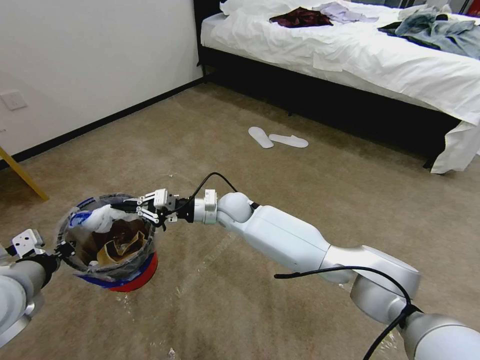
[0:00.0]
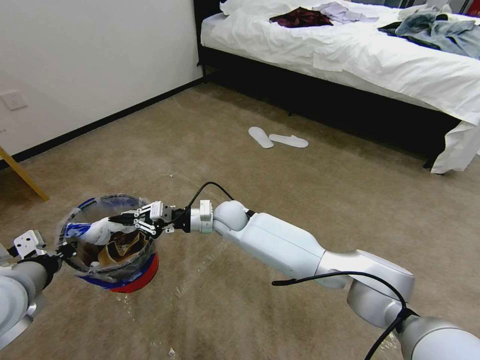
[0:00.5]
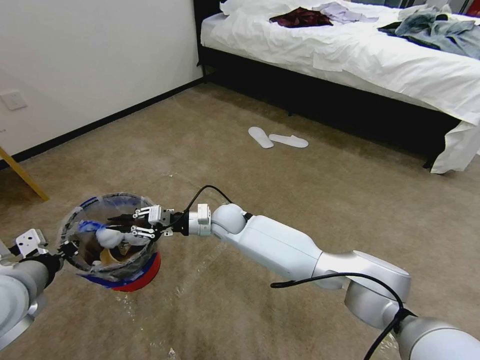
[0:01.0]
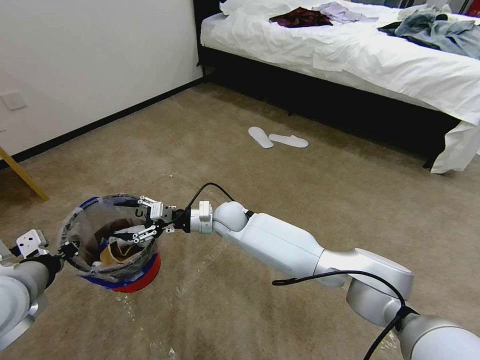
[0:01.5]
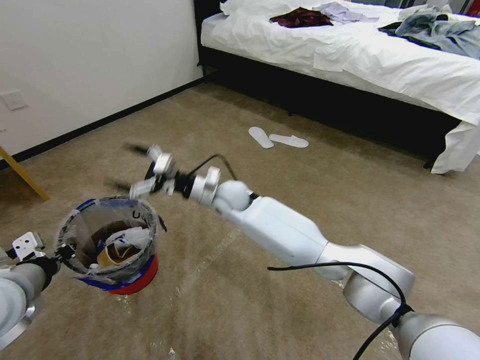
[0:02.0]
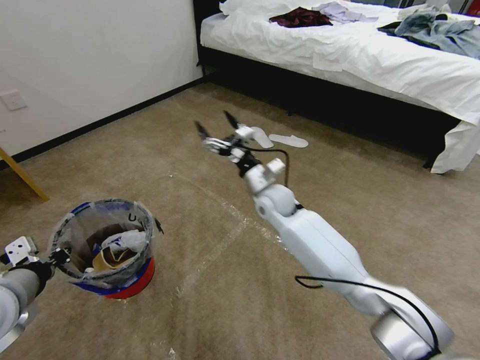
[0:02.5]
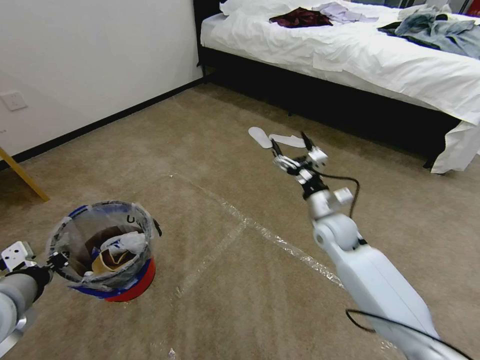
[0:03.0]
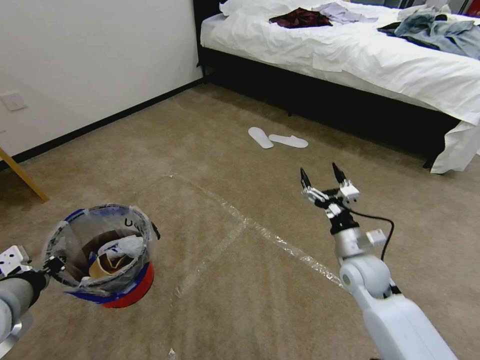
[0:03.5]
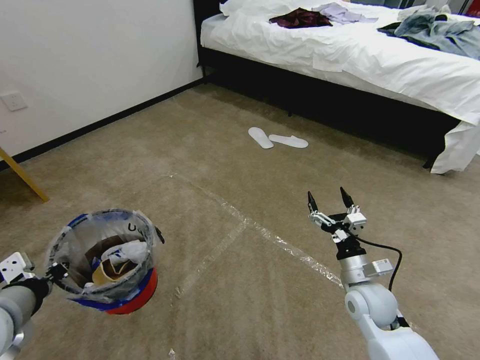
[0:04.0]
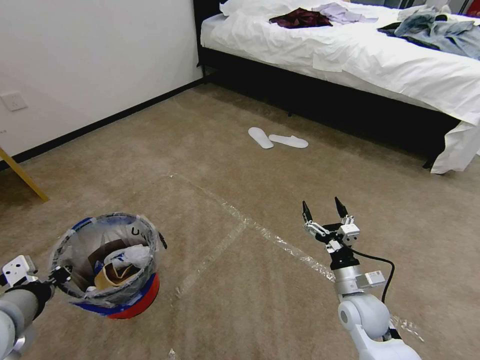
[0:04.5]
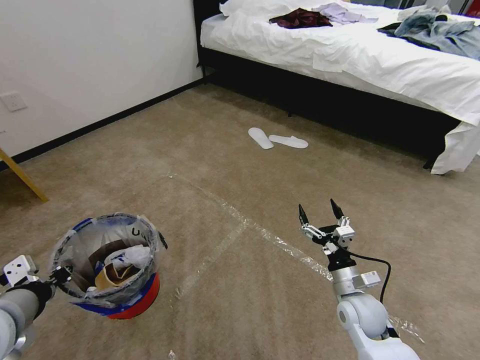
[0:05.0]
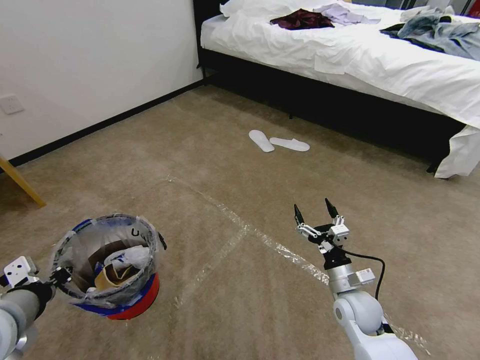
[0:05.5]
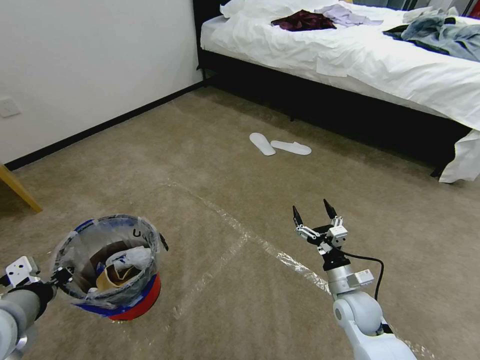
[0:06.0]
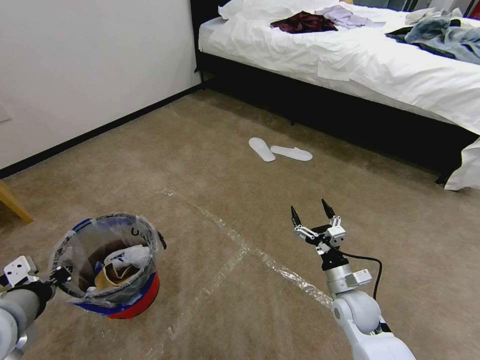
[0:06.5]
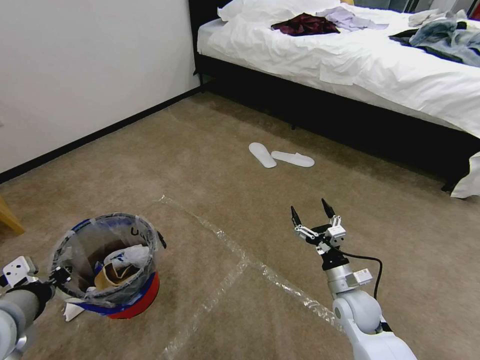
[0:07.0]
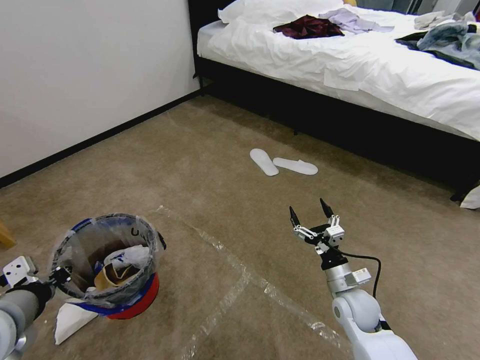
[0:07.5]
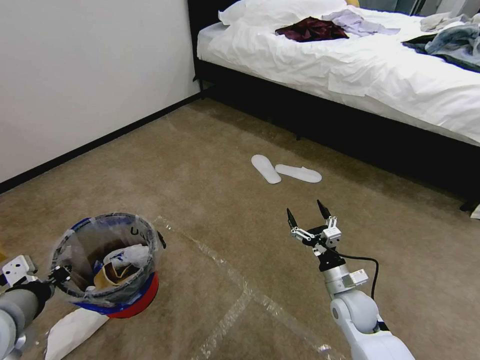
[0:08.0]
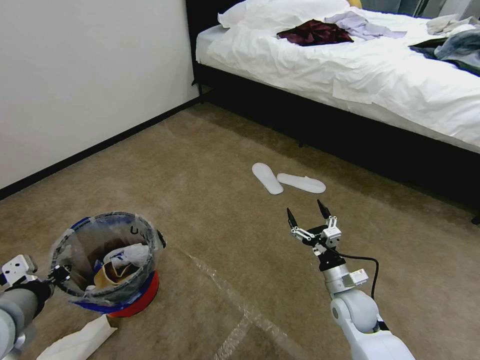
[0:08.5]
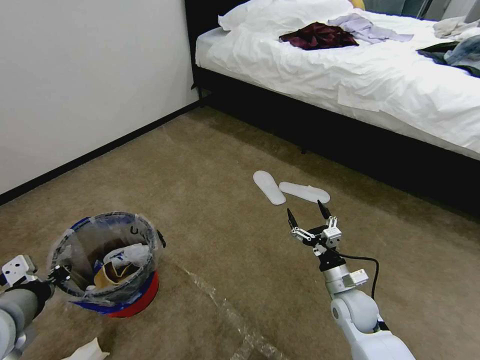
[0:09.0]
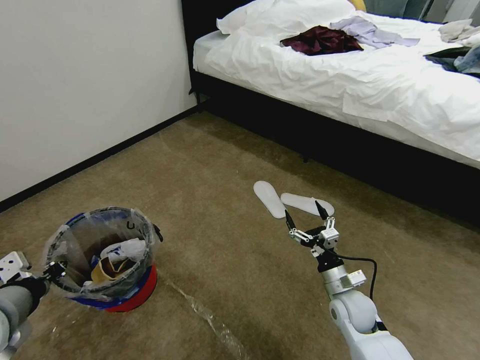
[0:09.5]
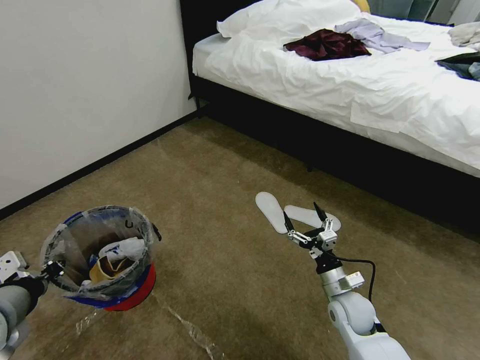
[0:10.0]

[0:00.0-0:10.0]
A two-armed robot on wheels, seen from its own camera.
Task of the whole recording: Pick up the trash bin and place the garbage on the floor into it.
0:00.0 to 0:02.0: The right gripper opens up.
0:02.0 to 0:04.0: The right gripper is displaced to the right and backward by some 40 cm.
0:04.0 to 0:06.0: The grippers stay close to where they were, moving slightly.

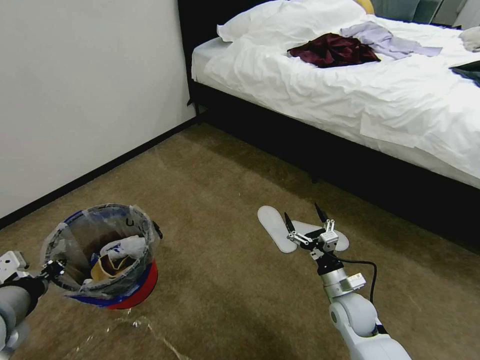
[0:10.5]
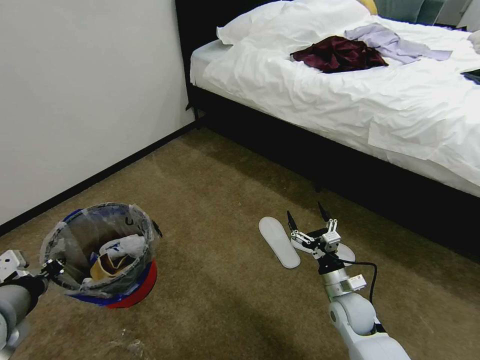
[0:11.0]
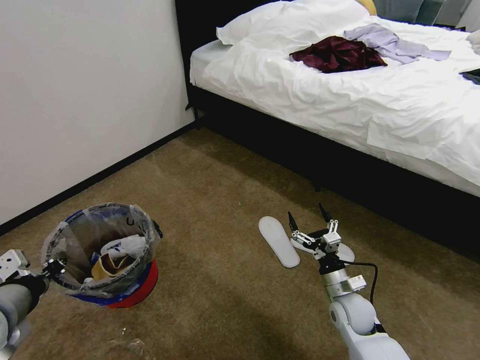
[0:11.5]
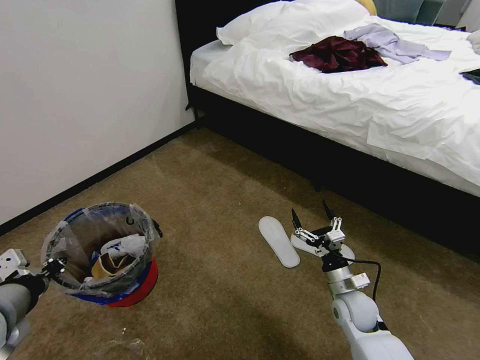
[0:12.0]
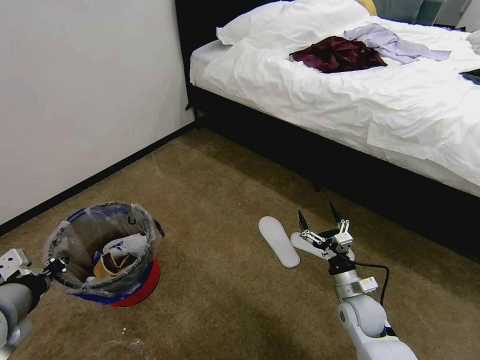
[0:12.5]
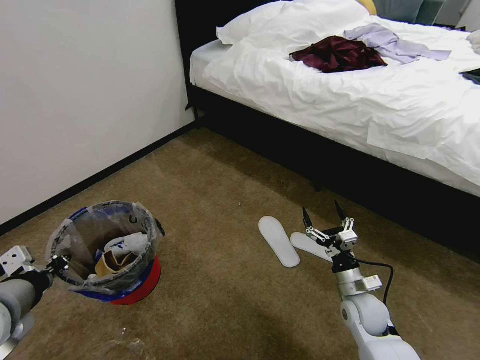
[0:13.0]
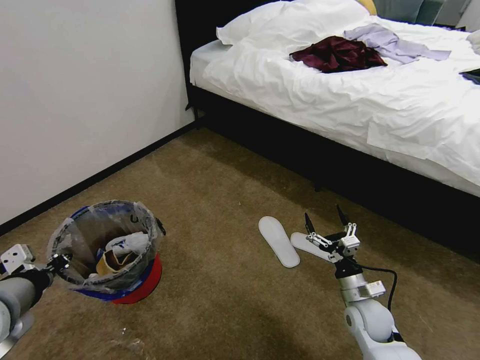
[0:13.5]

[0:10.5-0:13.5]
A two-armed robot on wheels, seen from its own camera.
Task of the whole recording: Pick up the trash bin and place the garbage on the floor into it.
0:10.5 to 0:13.5: There are only small adjustments of the grippers.
